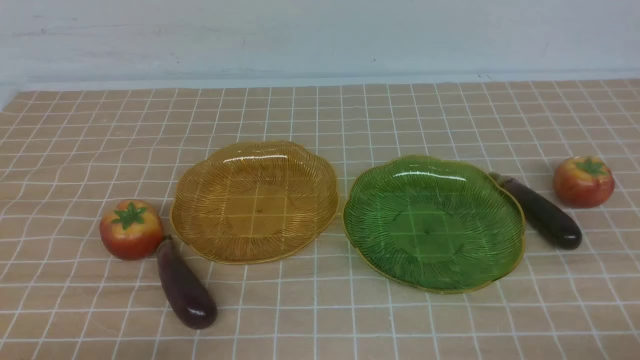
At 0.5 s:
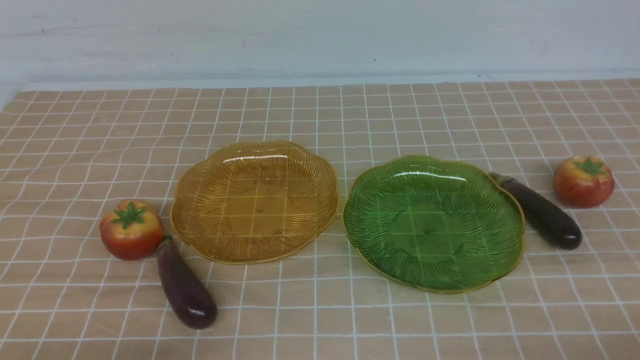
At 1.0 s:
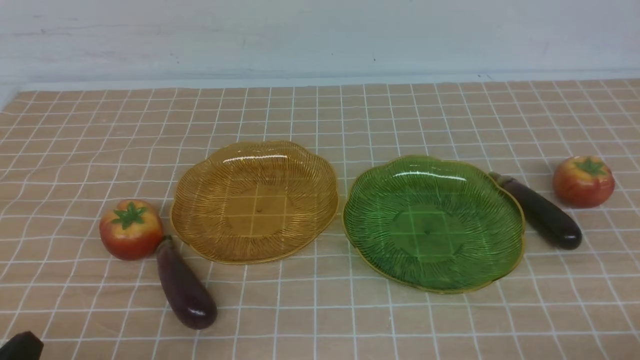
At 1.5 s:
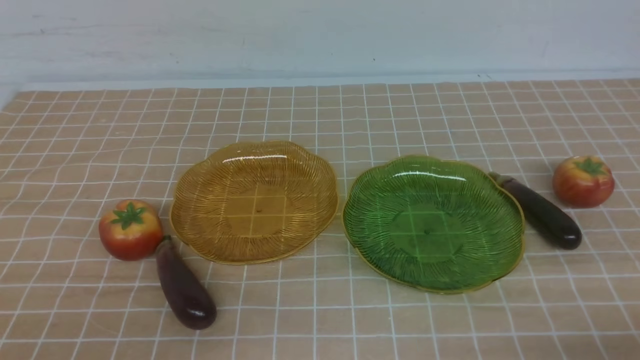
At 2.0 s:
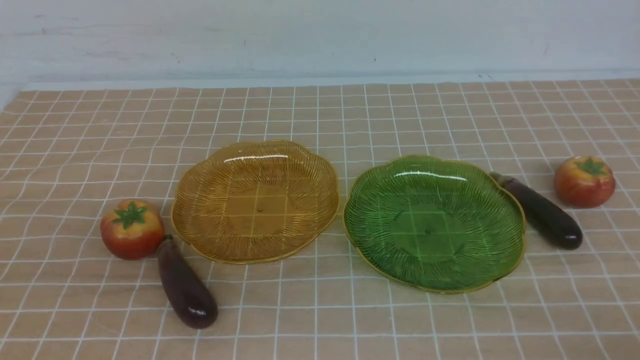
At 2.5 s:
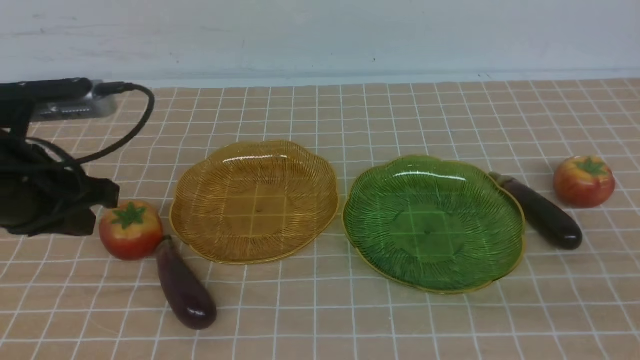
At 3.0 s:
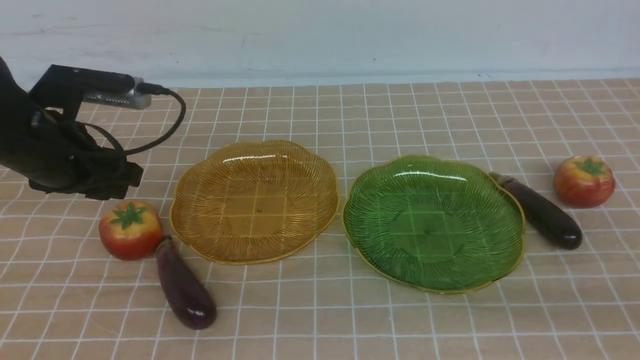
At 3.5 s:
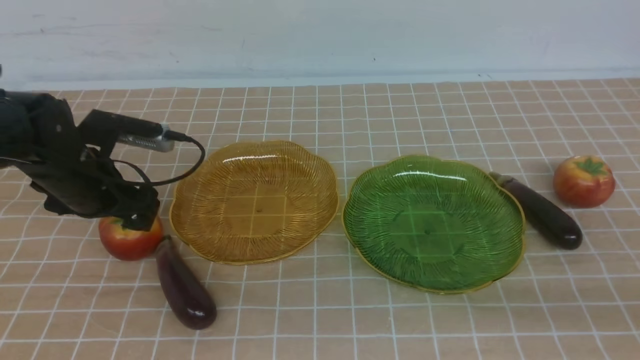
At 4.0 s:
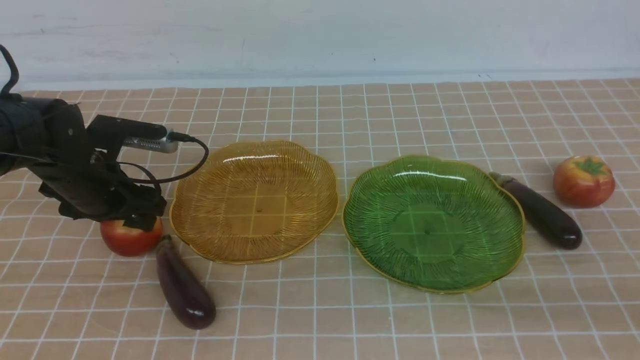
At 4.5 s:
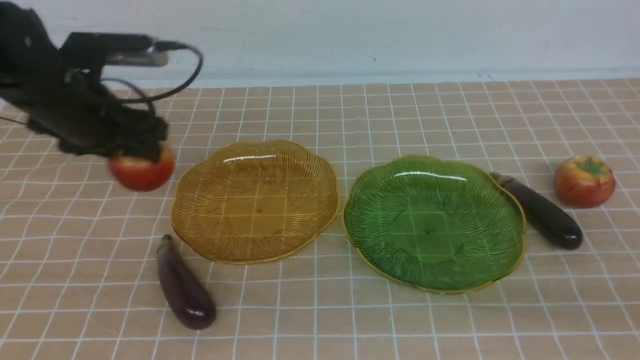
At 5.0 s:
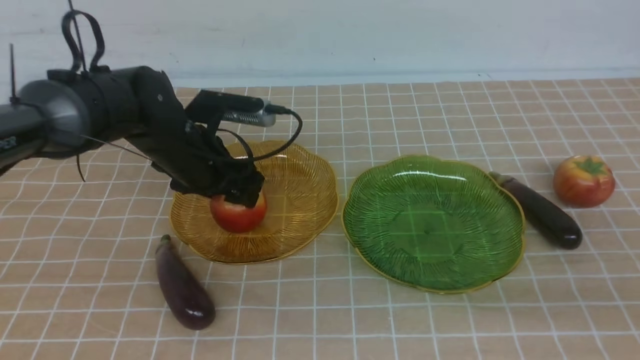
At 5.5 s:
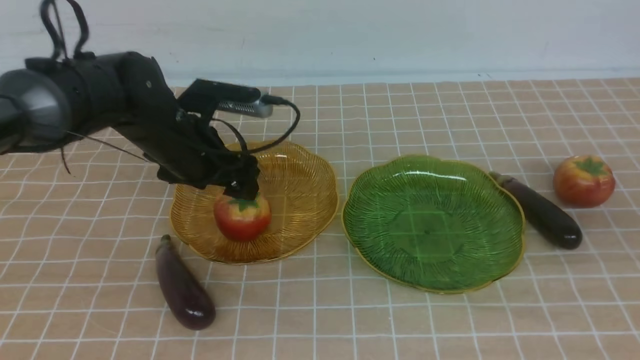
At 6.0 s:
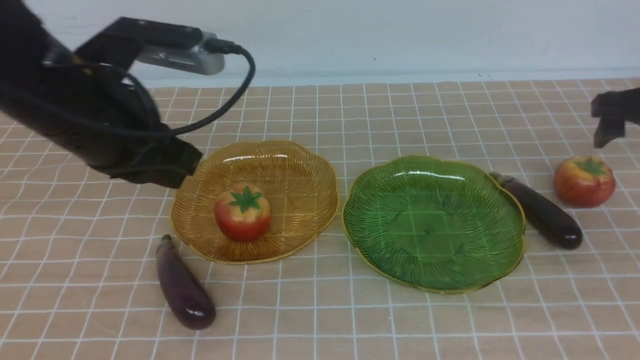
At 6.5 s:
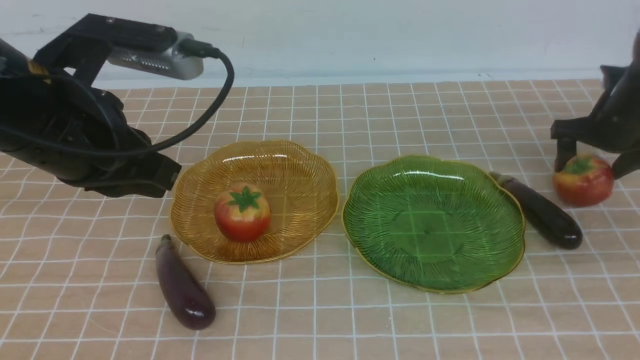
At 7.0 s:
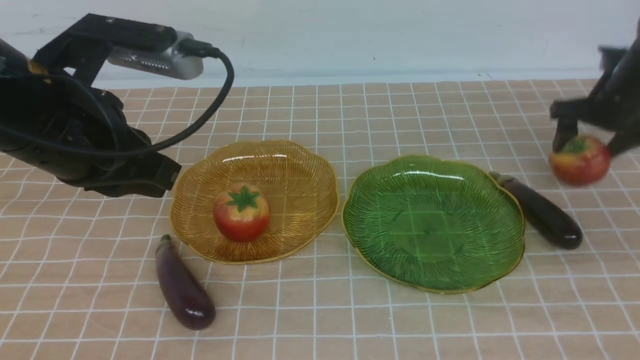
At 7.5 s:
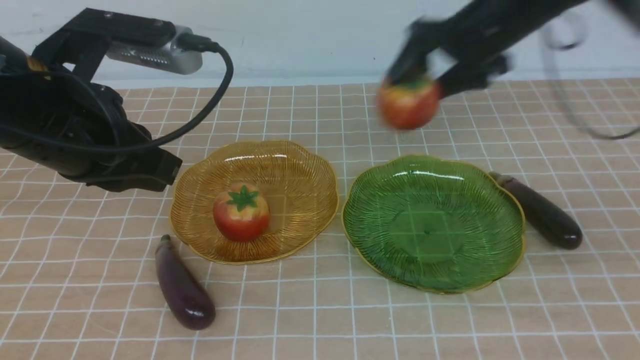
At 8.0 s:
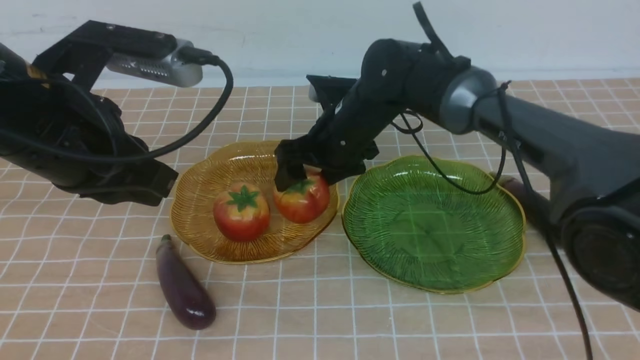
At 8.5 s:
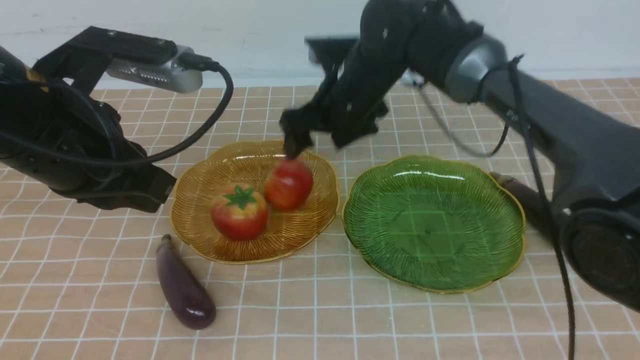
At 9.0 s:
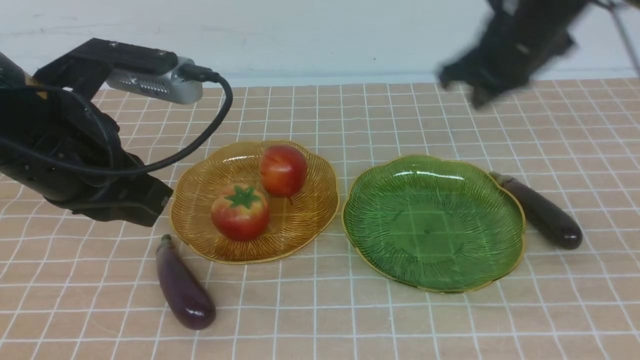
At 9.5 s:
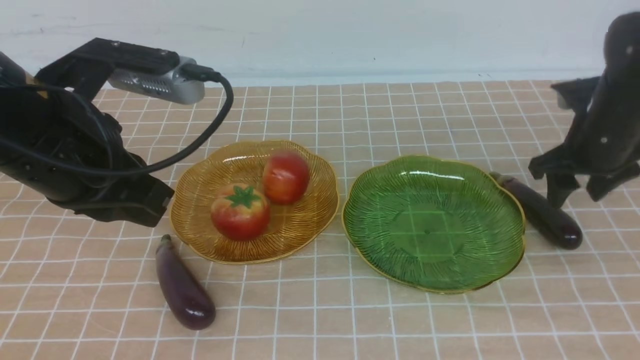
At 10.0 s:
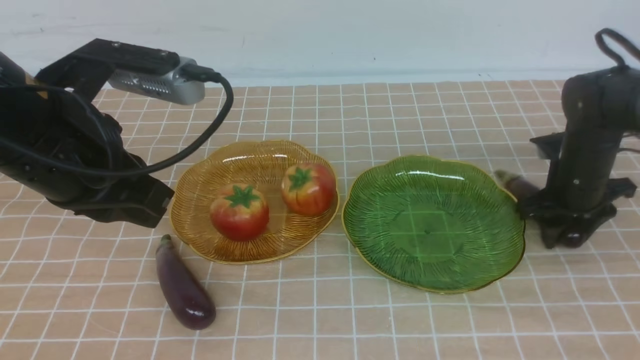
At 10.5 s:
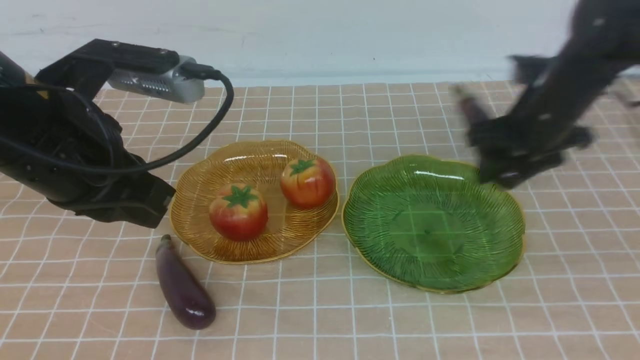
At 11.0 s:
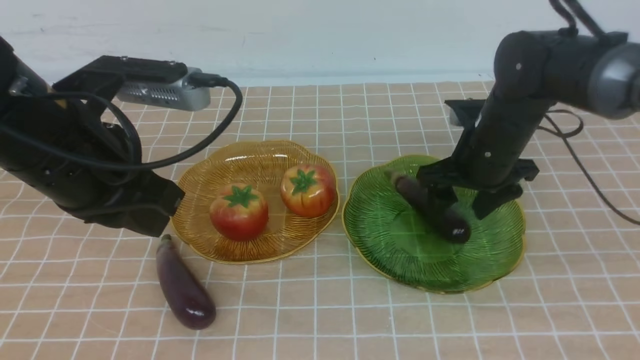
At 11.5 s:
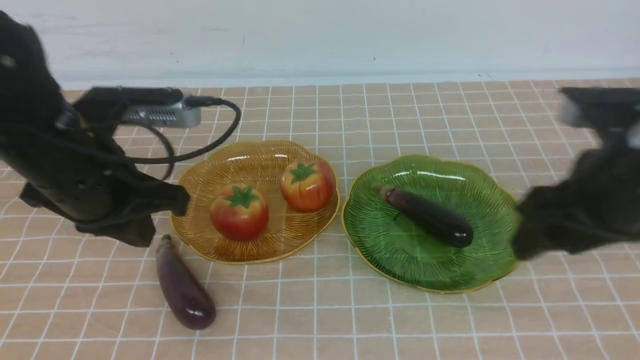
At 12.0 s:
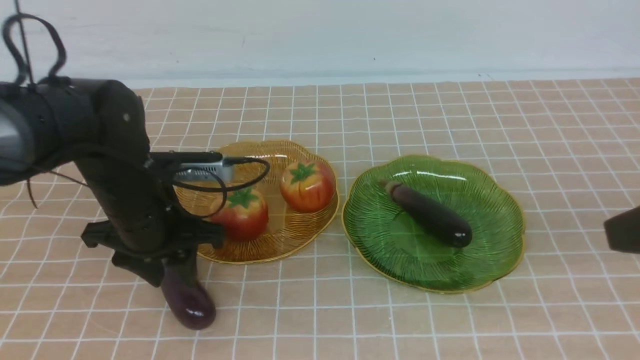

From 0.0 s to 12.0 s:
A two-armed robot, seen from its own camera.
Step, from 0.0 s to 5.5 s: use the left arm to grab a tomato and put it into the left plate.
Step, from 6.0 s to 8.5 s: use the right arm to grab a tomato and put it into the left plate.
Step, from 9.0 s to 11.0 s: use the right arm to grab an eggplant and put it into the right plate.
From 2.0 s to 4.0 s: The left gripper shifts some 25 cm forward and downward, and opens its fingers.
From 4.0 s to 6.0 s: The left gripper travels upward, backward and to the right by some 15 cm, and closes up. The right gripper goes roughly 30 cm forward, and opens its fingers.
From 6.0 s to 8.0 s: The right gripper moves to the left, roughly 35 cm.
From 8.0 s to 10.0 s: The right gripper heads to the right, covering some 20 cm, and closes up.
From 10.0 s to 12.0 s: The right gripper goes some 30 cm backward and upward. Meanwhile the left gripper heads downward and forward, covering about 20 cm, and opens.

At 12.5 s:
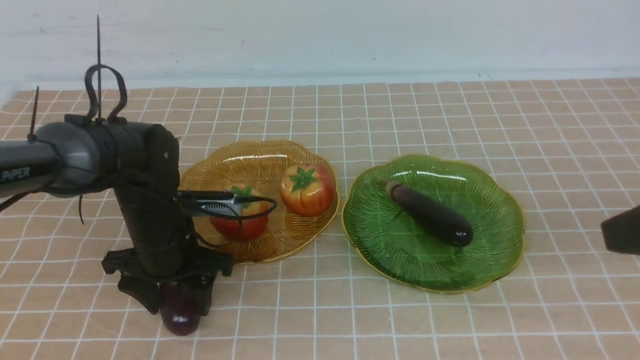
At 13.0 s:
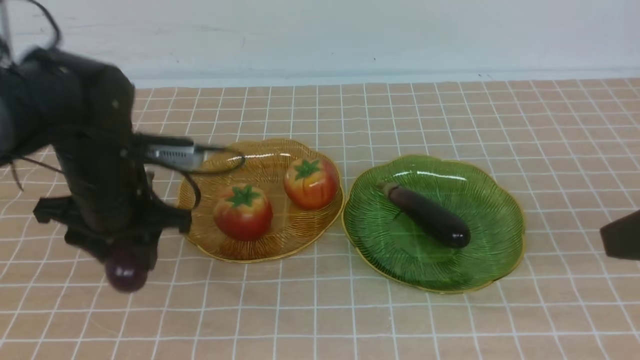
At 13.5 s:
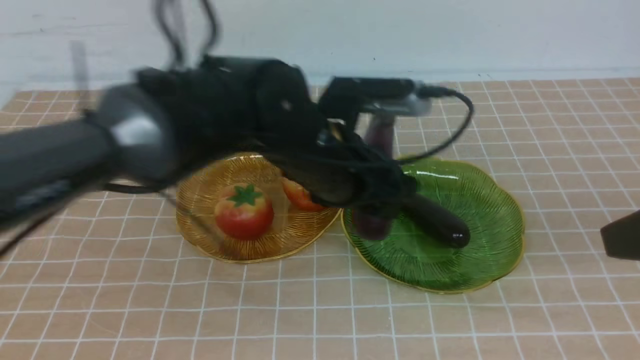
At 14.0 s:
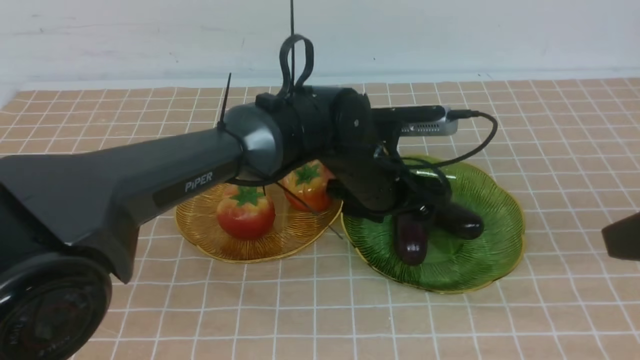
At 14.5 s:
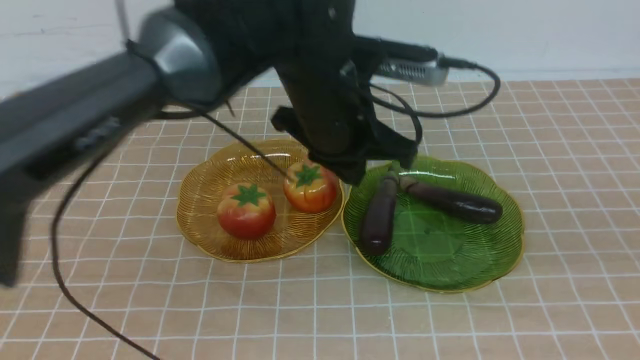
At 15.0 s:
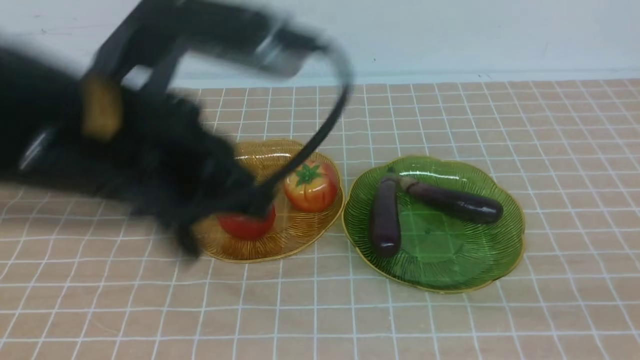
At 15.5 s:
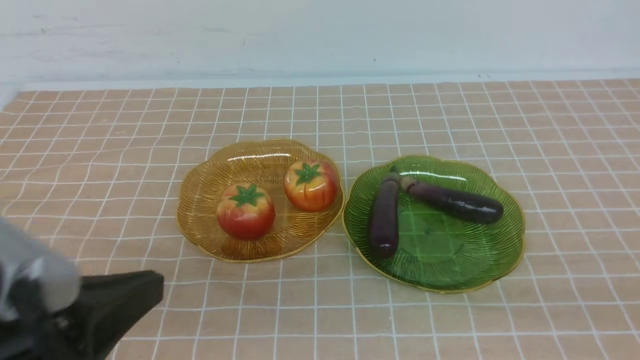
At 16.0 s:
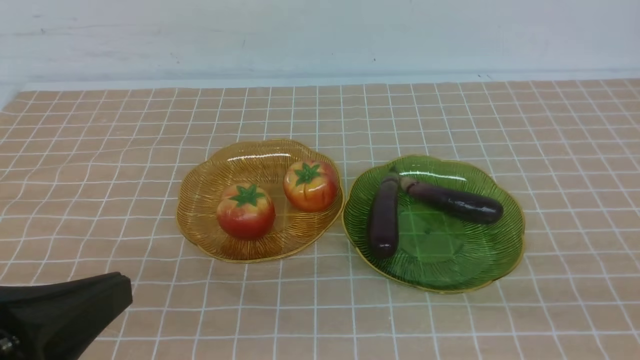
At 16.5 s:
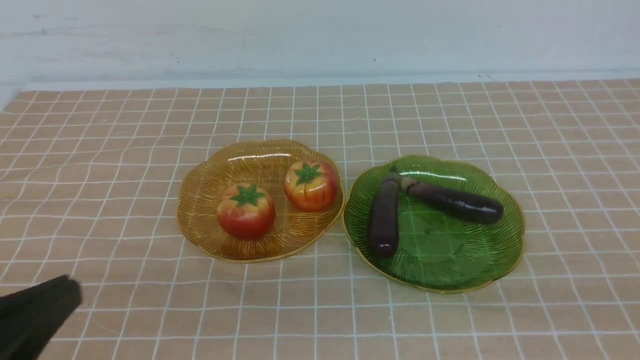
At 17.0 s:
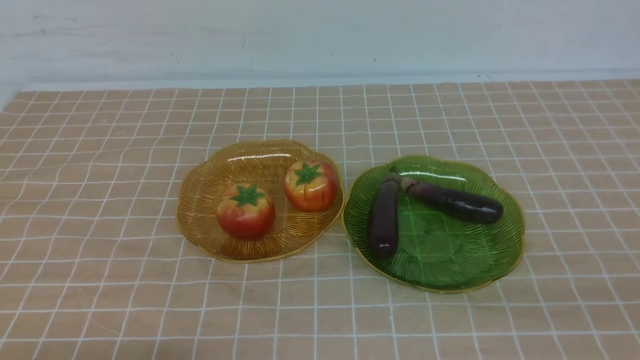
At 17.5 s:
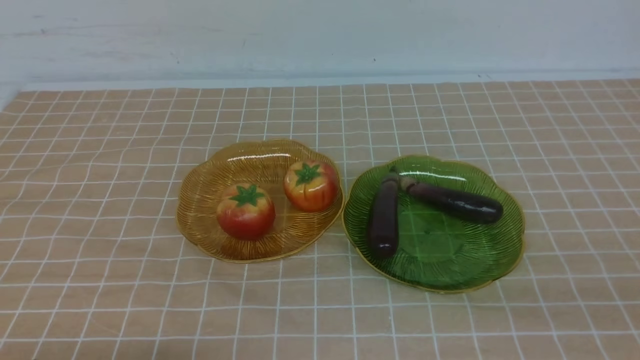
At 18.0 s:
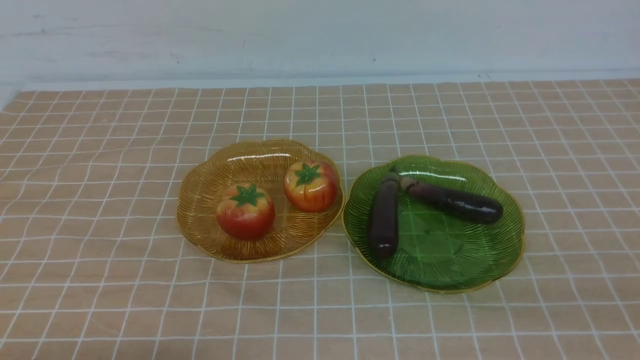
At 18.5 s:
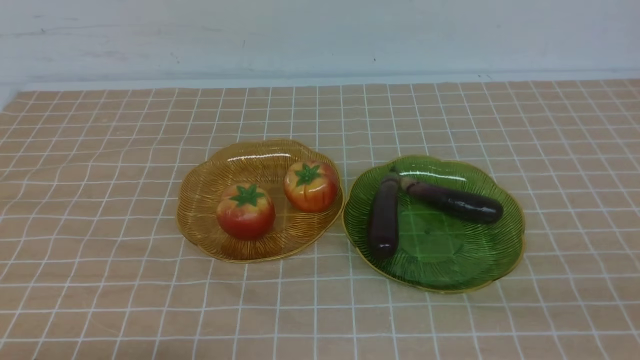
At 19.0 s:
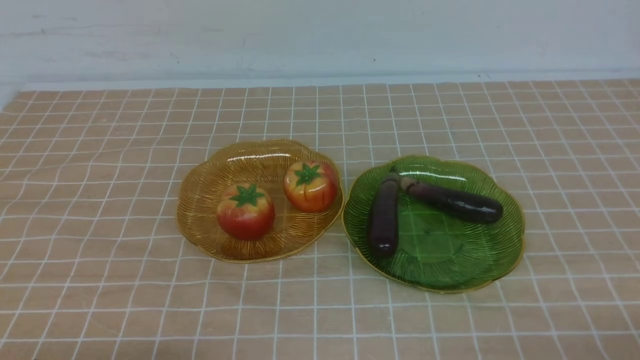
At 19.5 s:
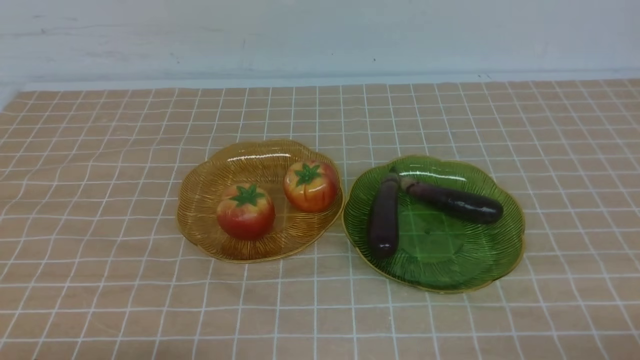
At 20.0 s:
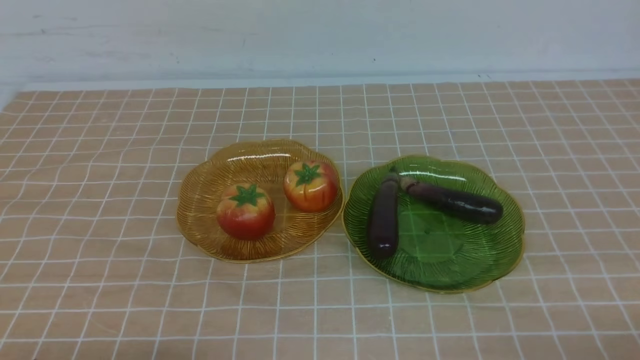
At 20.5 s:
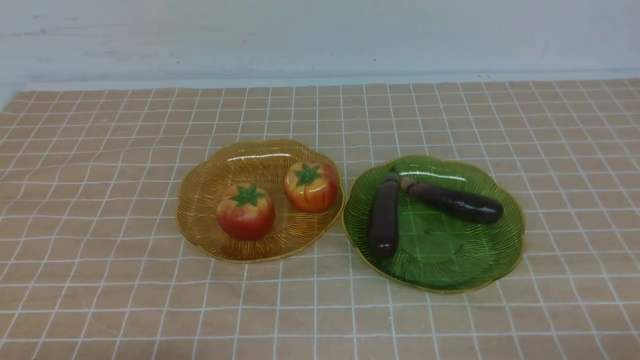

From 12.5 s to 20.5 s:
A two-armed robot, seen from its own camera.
Step, from 12.5 s to 14.0 s: use the left arm to grab an eggplant and put it into the right plate.
From 12.5 s to 14.5 s: The right gripper moves backward and to the right, about 15 cm; the left gripper moves backward and to the left, about 25 cm, and closes up.
From 14.5 s to 16.5 s: The left gripper is displaced downward and to the left by about 20 cm.
From 18.5 s to 20.5 s: The two grippers keep their place.
